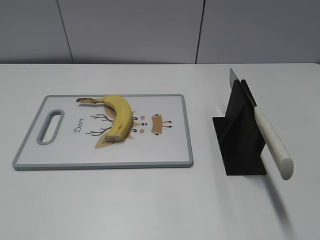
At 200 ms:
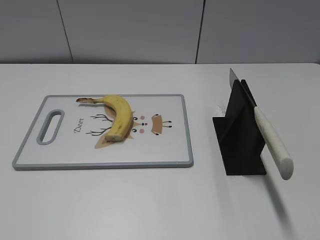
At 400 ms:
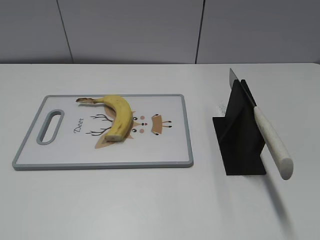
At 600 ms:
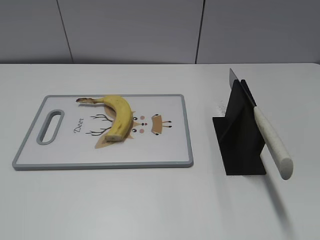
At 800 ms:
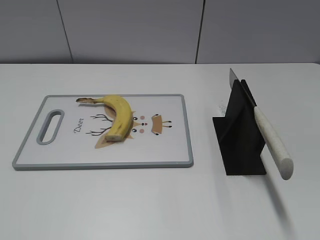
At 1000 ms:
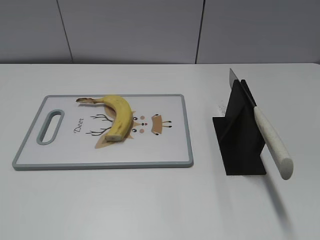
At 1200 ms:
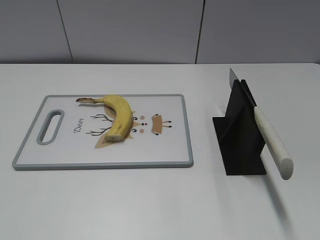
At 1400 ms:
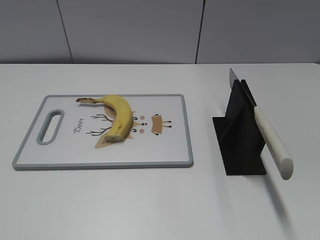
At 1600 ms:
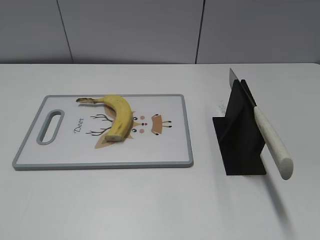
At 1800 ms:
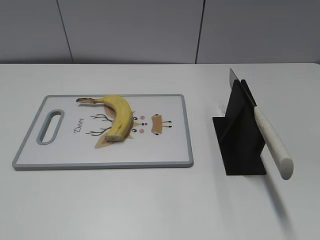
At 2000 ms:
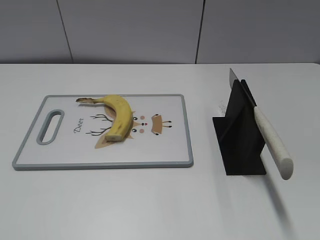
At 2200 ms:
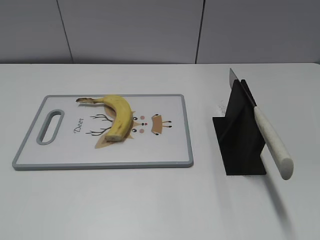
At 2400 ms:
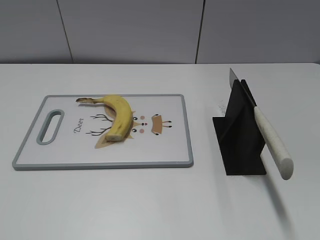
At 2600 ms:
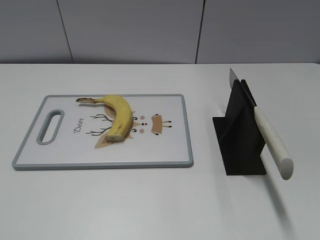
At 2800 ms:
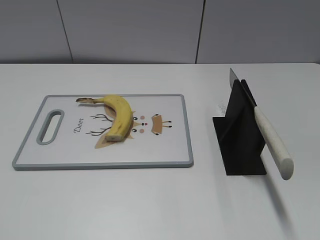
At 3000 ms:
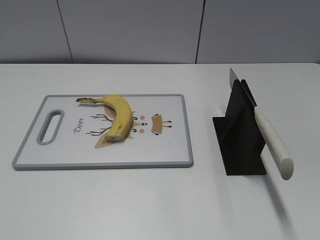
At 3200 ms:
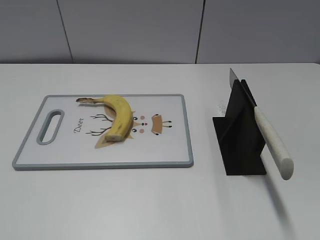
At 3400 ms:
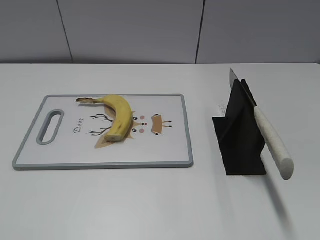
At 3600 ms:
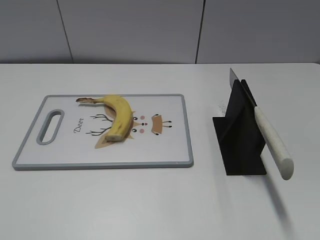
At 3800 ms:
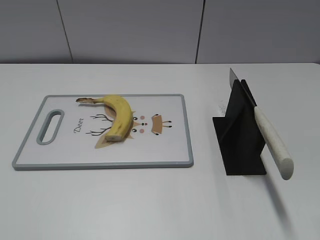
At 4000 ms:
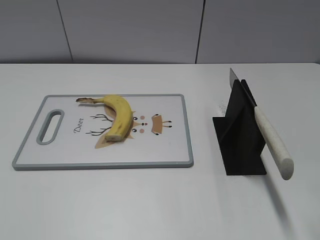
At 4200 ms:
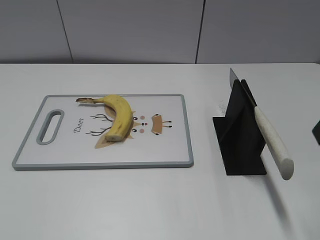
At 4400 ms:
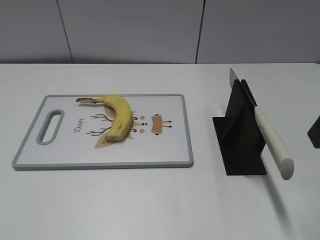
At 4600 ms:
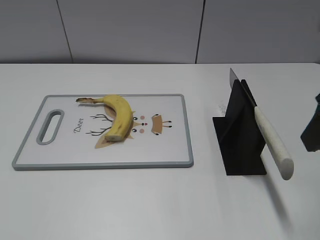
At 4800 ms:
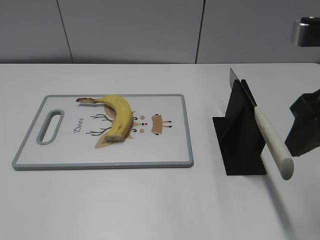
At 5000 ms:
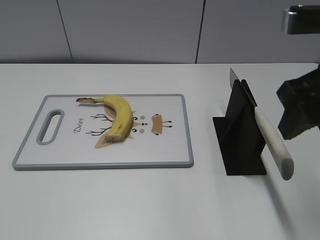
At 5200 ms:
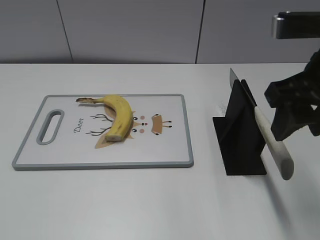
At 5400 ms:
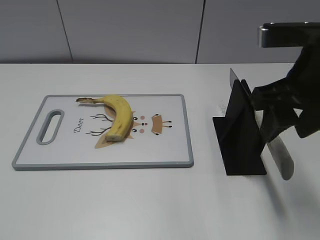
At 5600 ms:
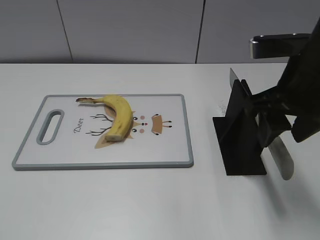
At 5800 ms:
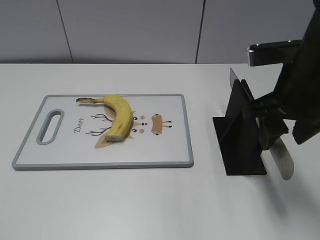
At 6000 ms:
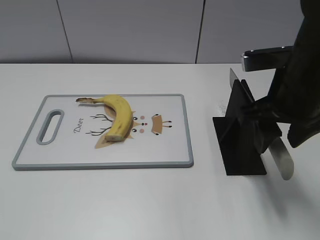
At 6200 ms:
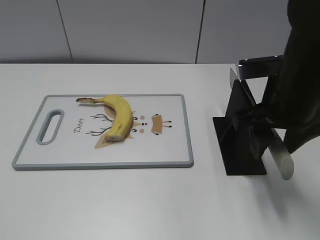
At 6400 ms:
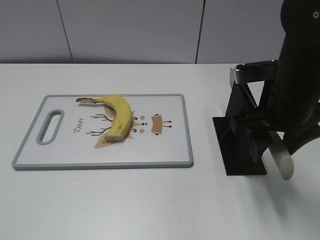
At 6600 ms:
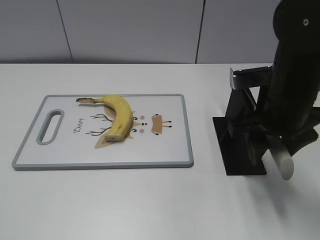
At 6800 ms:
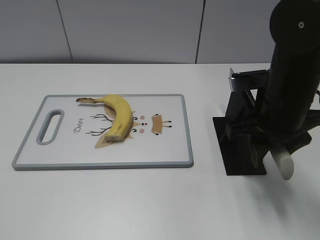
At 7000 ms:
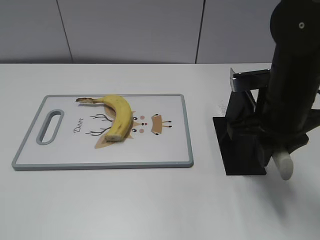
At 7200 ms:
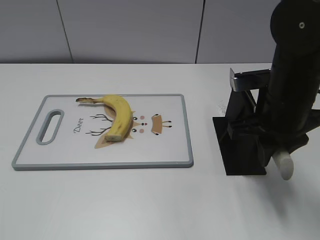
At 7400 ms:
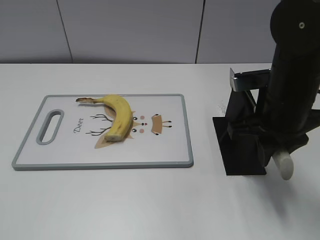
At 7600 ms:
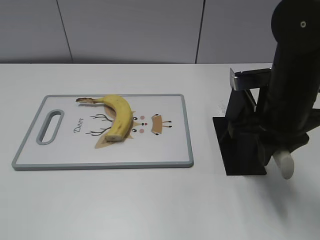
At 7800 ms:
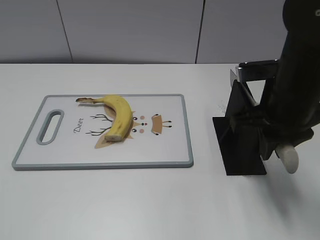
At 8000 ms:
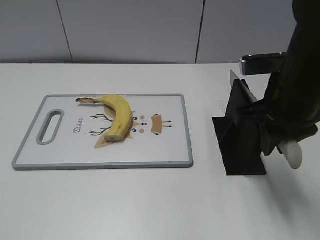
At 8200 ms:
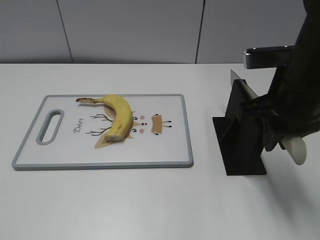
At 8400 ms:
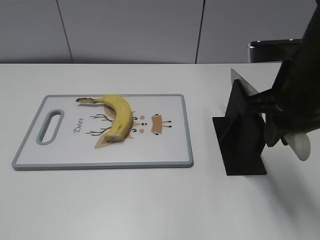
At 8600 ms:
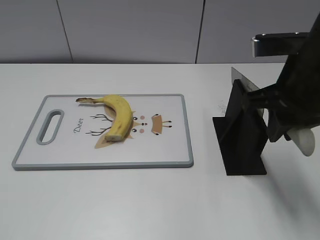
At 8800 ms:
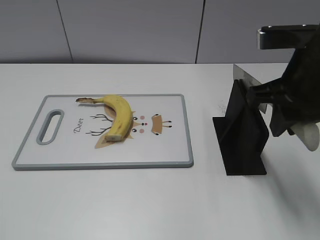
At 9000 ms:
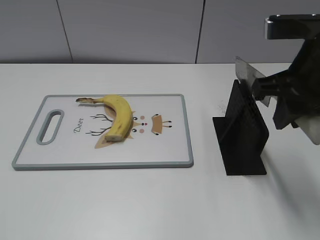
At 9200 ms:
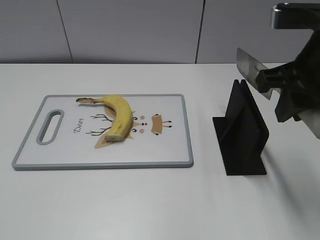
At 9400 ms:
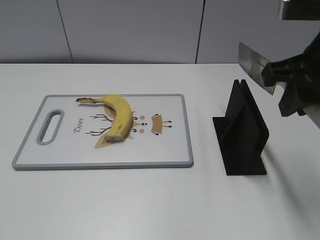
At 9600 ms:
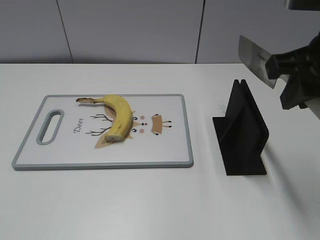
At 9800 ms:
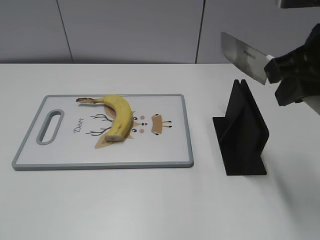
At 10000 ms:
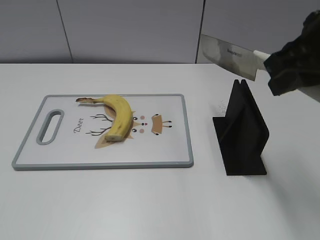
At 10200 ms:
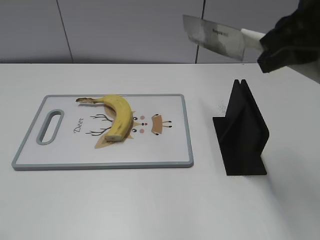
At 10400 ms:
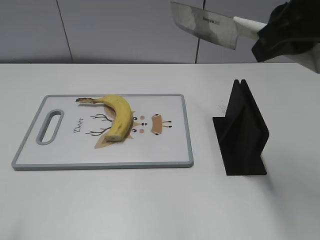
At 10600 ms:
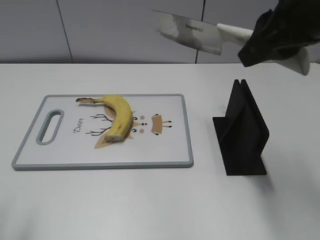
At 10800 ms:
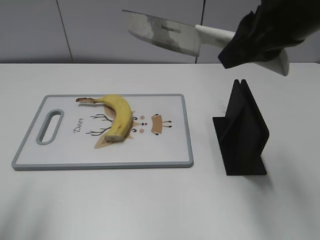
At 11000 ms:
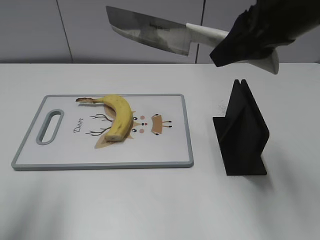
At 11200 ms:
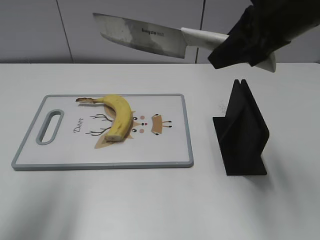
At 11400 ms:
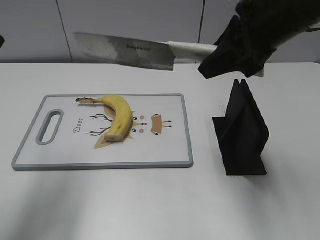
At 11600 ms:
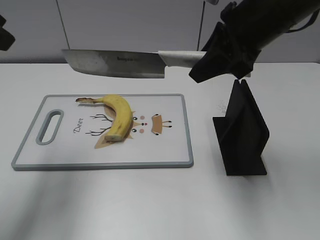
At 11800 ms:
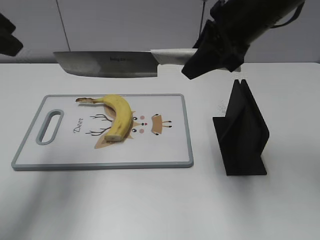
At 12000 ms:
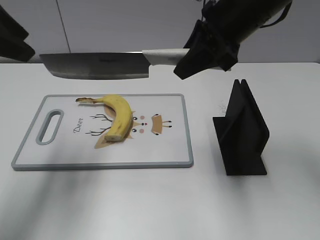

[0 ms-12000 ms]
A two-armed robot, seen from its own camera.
Task of the whole recording: cut banana.
Step, 0 ms to 9200 ms: Grab the knife handle with your right hand.
4400 ms to 6000 ms: The right gripper moves downward, forward and to the left, roughly 10 cm.
6000 ms to 7600 ms: The right gripper closes up.
7600 ms to 9000 ms: The right gripper moves upward, some 10 cm.
9000 ms to 10400 ms: The right gripper heads upward, covering roughly 5 cm.
10400 ms to 12000 ms: The left gripper heads forward, covering about 20 cm. Meanwhile the right gripper is displaced forward, downward and to the left by some 10 cm.

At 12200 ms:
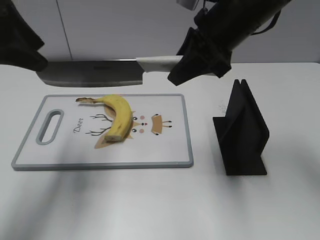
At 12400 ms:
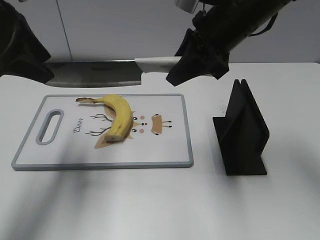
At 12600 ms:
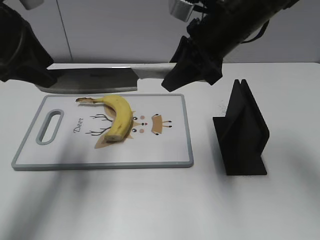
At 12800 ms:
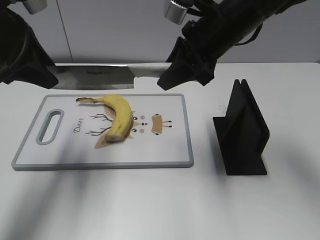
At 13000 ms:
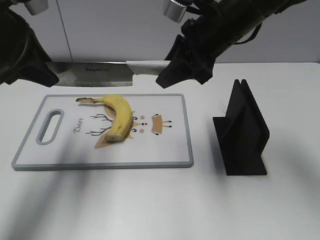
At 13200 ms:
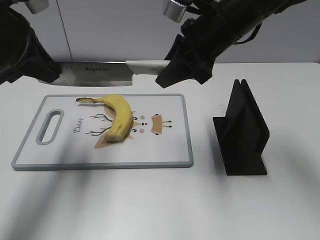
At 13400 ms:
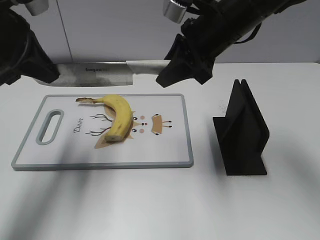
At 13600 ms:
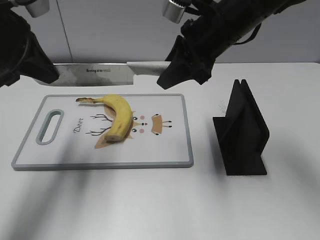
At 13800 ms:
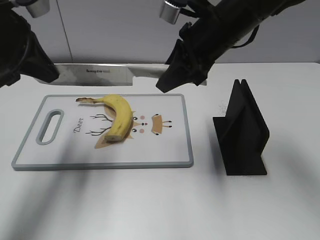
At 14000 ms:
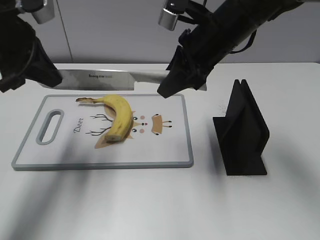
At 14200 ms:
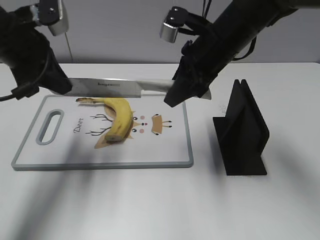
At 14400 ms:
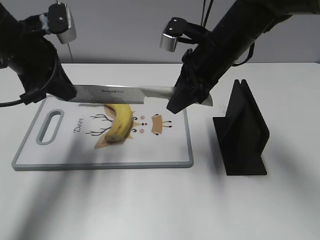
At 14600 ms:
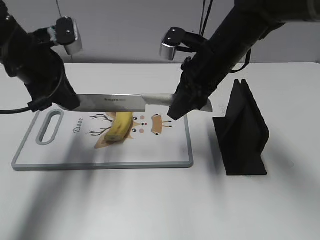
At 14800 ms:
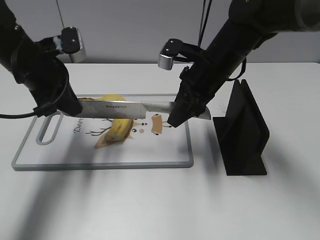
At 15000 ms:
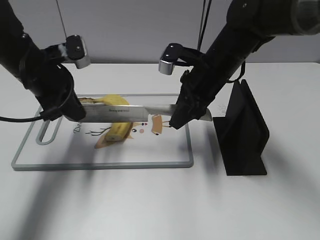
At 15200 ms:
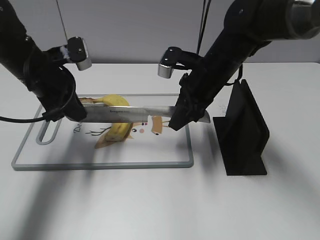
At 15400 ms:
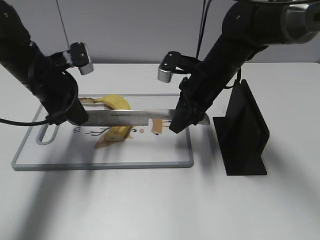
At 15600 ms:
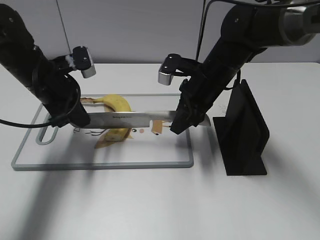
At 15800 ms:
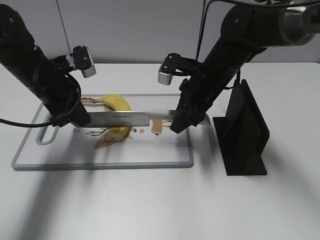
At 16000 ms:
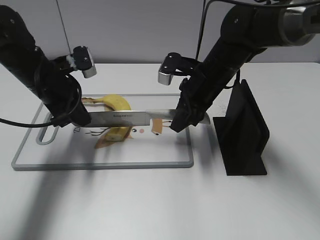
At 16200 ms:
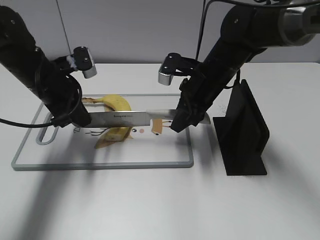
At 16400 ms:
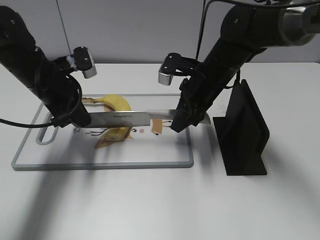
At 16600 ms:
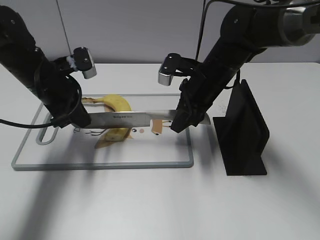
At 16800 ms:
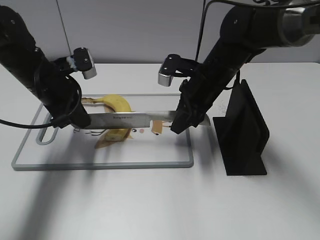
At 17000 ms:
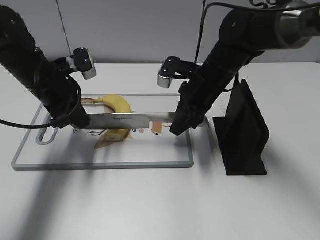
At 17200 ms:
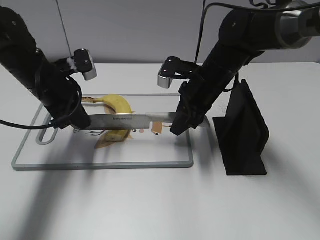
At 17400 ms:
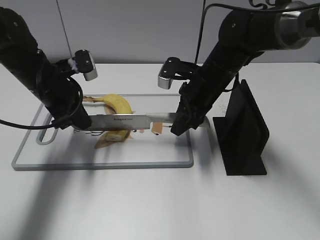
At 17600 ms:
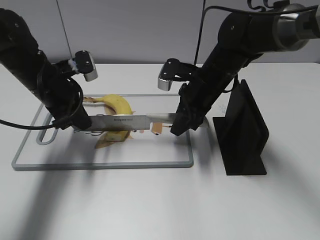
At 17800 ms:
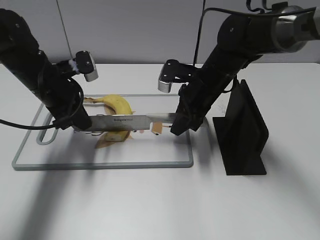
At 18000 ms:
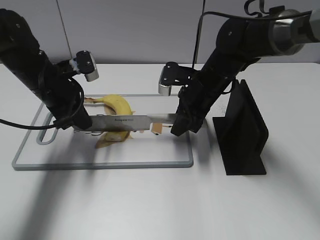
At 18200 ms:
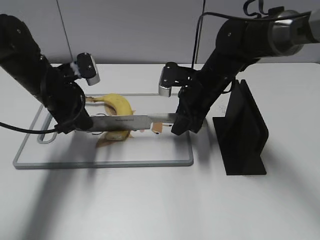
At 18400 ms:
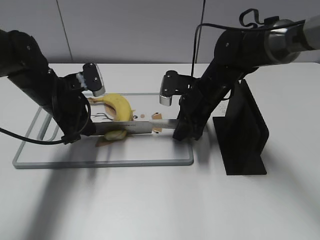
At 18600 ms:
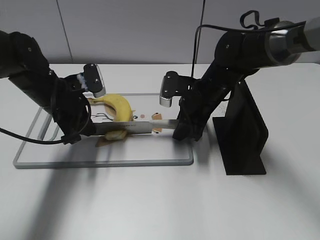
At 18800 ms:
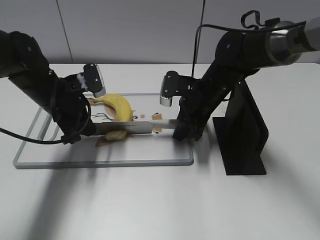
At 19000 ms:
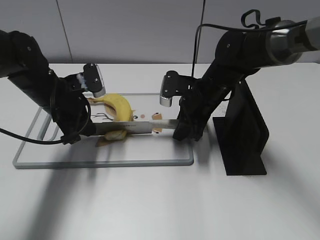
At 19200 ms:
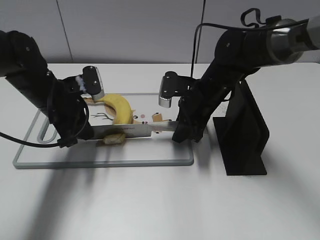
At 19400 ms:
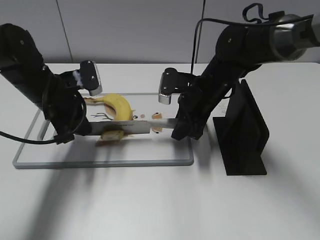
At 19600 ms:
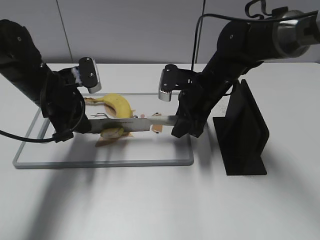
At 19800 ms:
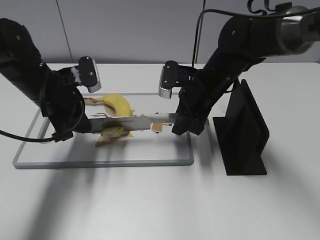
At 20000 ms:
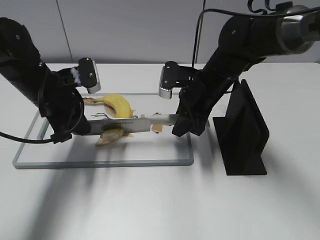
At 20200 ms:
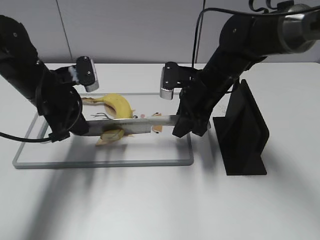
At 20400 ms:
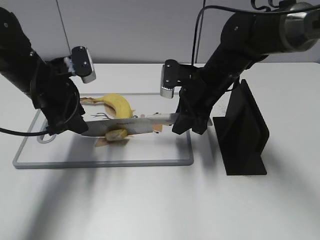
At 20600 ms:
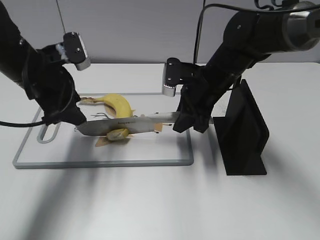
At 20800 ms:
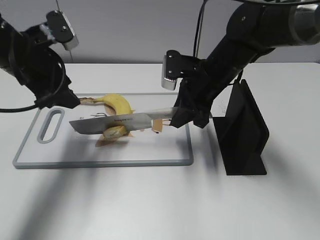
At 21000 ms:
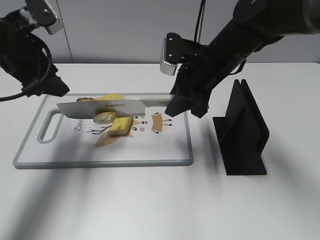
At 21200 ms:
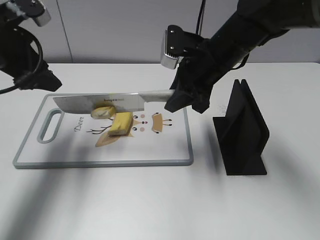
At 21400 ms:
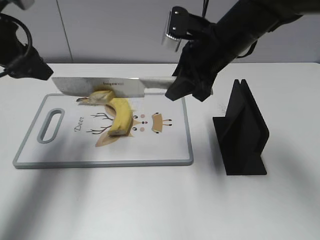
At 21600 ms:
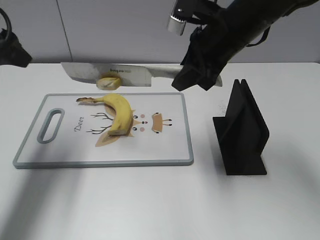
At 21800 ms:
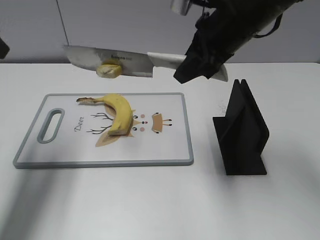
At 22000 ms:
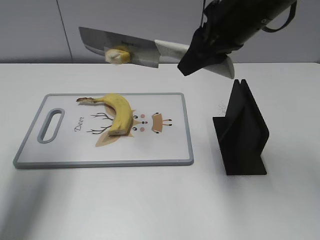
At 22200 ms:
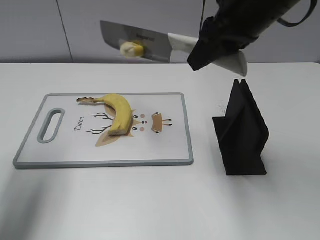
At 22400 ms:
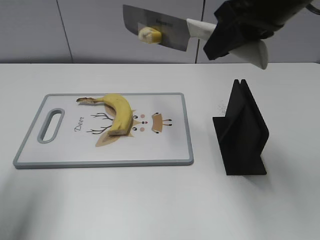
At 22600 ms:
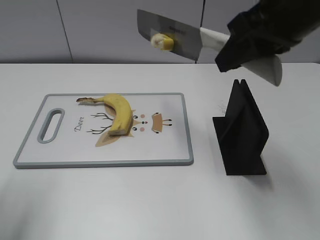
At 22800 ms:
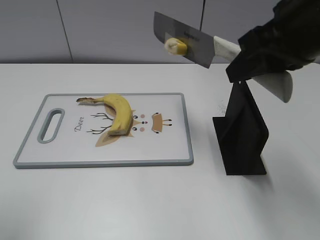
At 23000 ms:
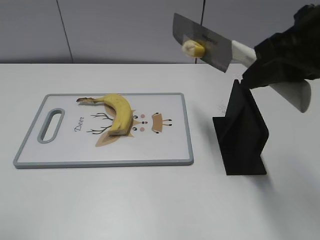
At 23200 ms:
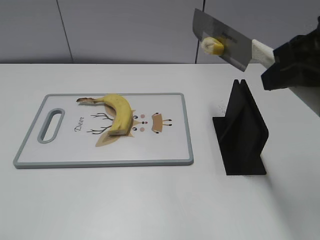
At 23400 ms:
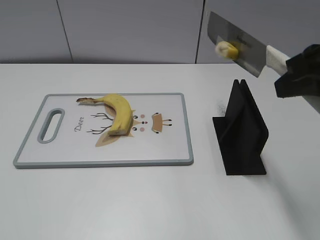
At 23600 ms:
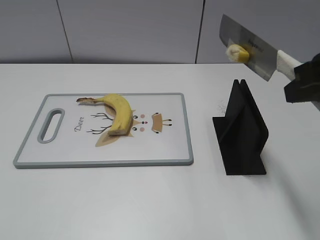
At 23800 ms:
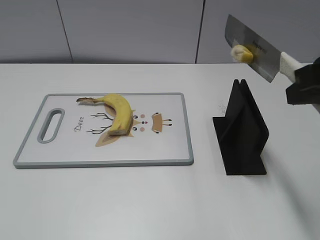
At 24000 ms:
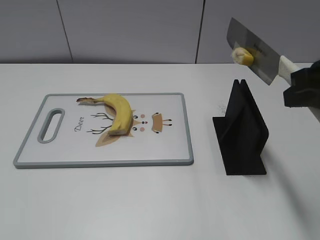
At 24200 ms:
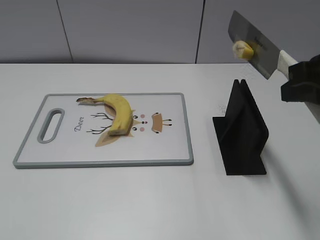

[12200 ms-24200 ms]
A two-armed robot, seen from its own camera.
Task of the whole recording: cut banana.
Step, 12200 ms to 17000 ms: Lift the knife with your right hand.
Step, 17200 ms to 24000 ms: Cut the banana with your right hand.
12200 ms to 13800 ms: The left gripper closes its fingers.
13800 ms to 15200 ms: Both grippers travel together downward, roughly 10 cm.
15200 ms to 18200 ms: The grippers make only small movements.
18200 ms to 19800 ms: The grippers move only a little.
19800 ms to 21200 ms: The right gripper goes roughly 5 cm upward; the left gripper is displaced upward by roughly 10 cm, and opens its fingers.
21200 ms to 22600 ms: The right gripper goes some 20 cm upward, backward and to the right. The left gripper travels backward and upward by some 15 cm.
22600 ms to 24200 ms: The left gripper travels backward by roughly 20 cm. The right gripper goes approximately 10 cm backward and to the right.
